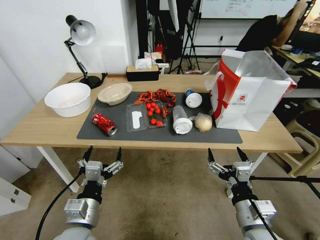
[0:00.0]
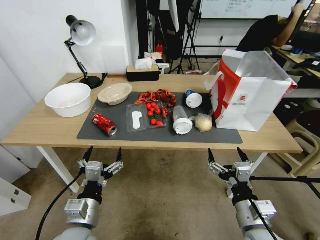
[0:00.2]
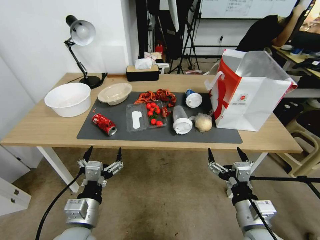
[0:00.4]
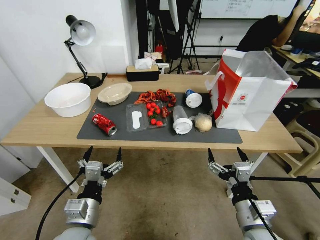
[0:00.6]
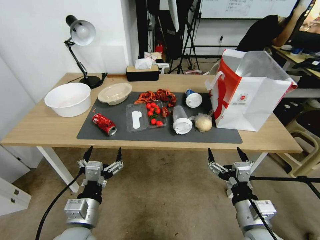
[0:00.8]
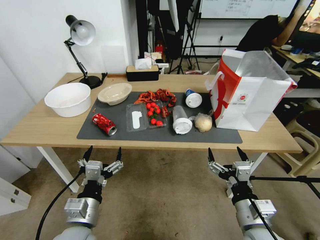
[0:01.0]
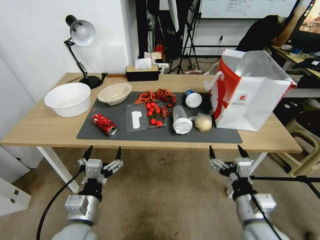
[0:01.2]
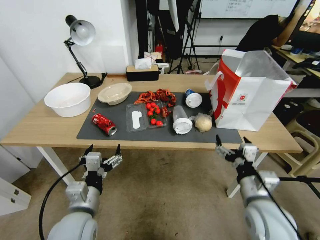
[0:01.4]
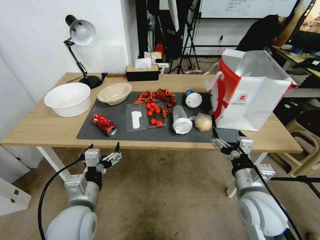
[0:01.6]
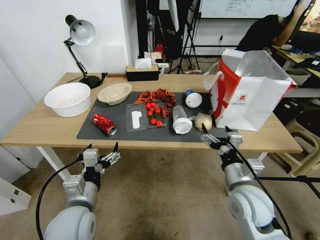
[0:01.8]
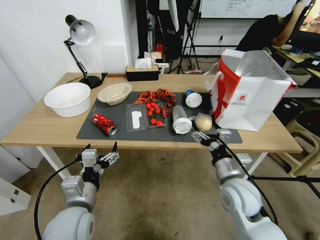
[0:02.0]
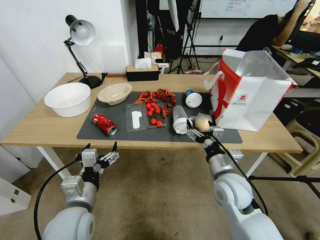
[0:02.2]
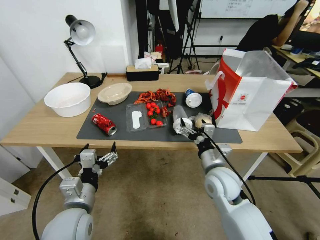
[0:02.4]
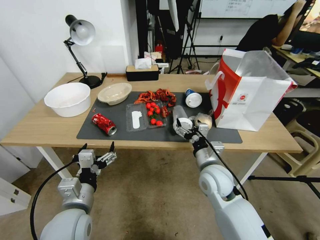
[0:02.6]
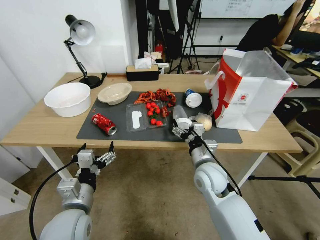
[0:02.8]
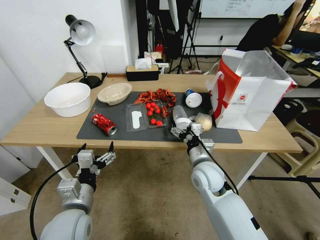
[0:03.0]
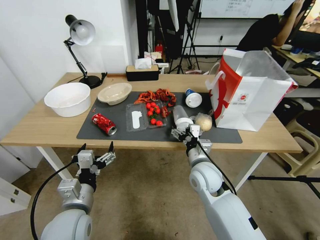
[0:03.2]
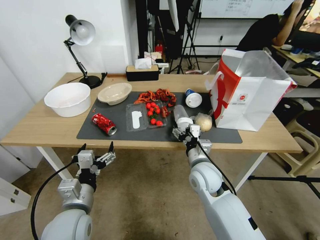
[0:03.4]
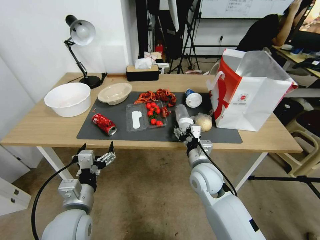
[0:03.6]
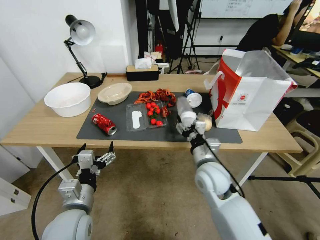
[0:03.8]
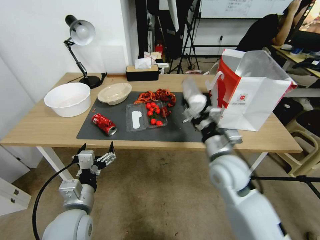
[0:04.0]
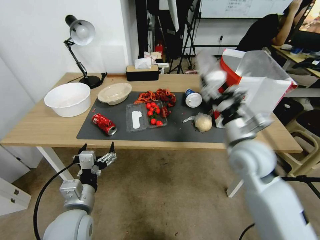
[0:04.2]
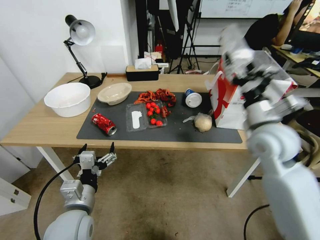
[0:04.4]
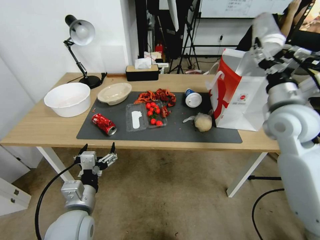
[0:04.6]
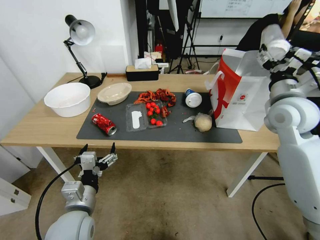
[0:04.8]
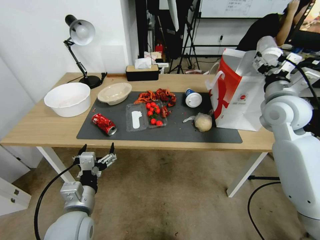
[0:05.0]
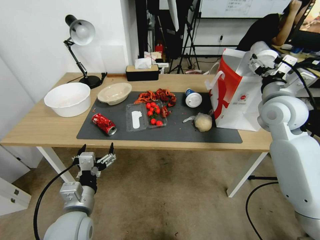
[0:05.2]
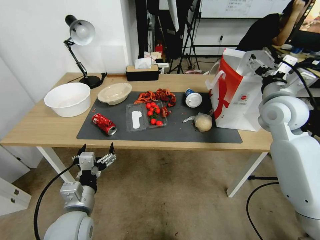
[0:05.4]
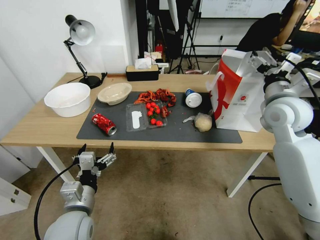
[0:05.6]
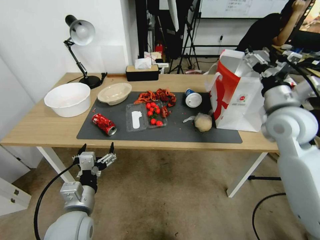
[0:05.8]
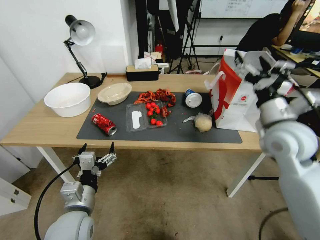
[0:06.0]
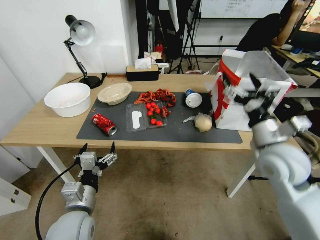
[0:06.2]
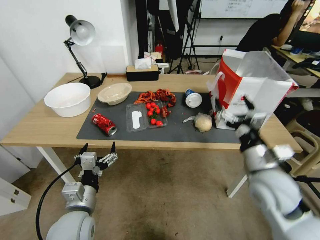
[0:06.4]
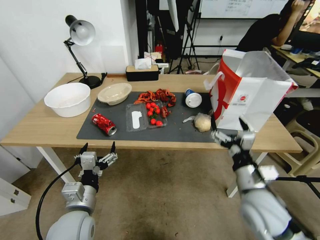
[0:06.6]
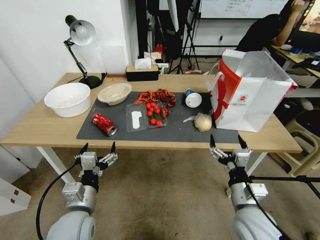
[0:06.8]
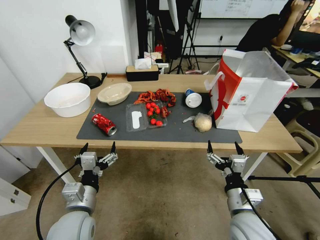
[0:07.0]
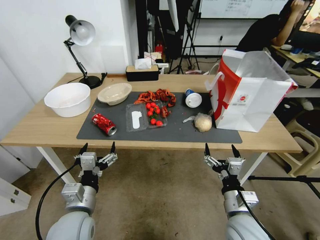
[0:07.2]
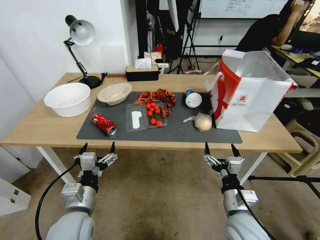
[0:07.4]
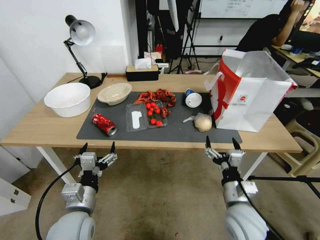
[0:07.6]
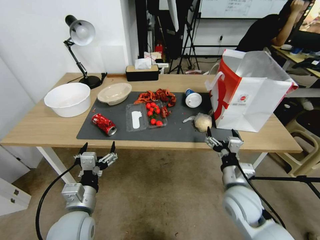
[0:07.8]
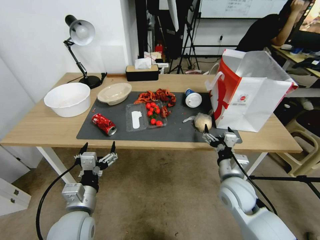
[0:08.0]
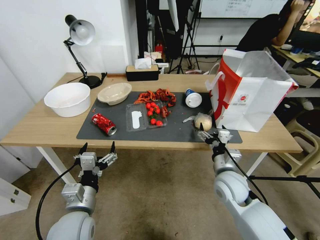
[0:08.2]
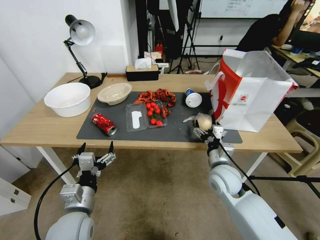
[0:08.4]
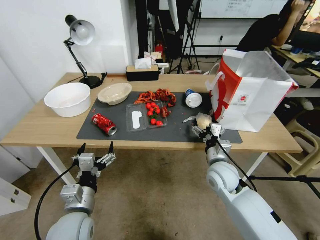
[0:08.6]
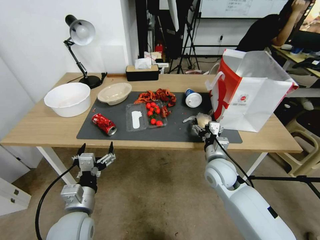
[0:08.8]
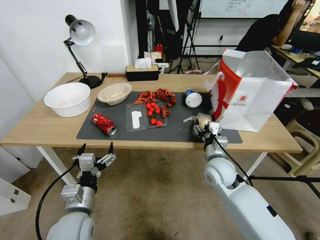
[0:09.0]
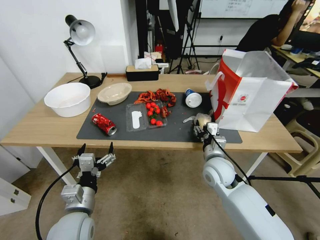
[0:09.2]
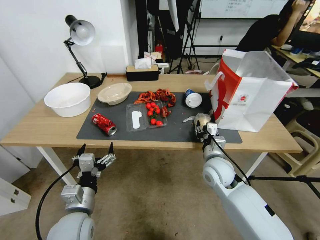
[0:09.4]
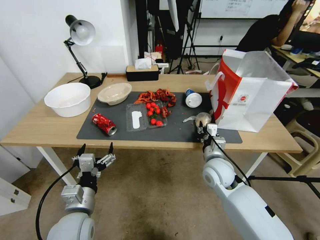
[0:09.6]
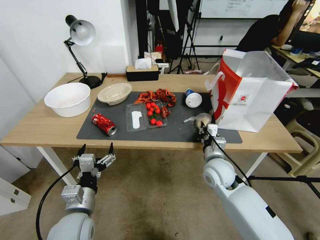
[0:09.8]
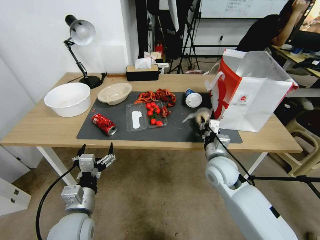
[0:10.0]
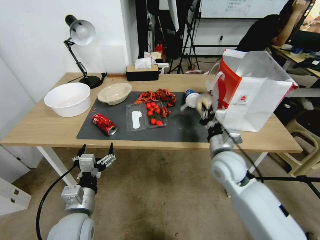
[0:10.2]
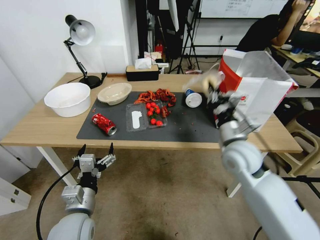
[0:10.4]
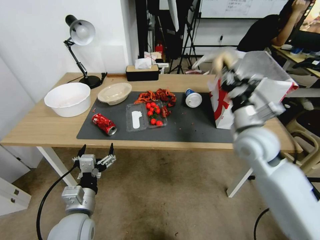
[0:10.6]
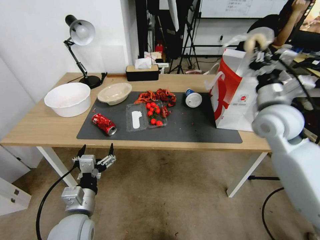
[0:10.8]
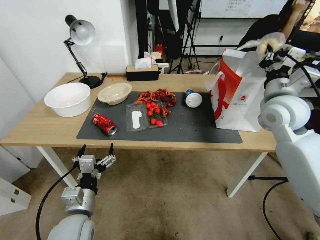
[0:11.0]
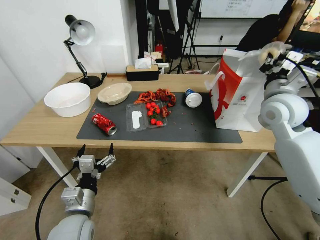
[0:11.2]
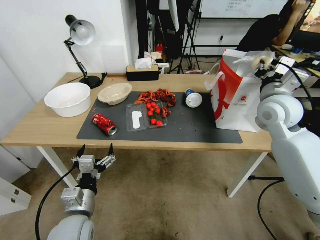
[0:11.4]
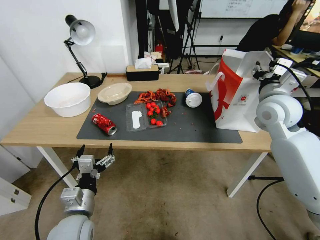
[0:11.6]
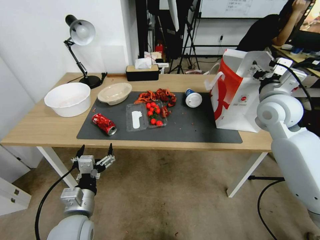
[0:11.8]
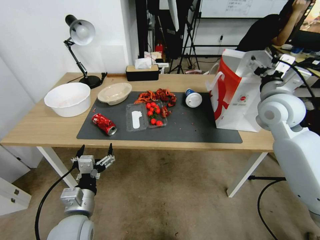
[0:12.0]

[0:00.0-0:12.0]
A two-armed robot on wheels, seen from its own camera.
0:01.6 to 0:03.0: The right gripper heads forward and to the left, covering about 15 cm.
0:03.0 to 0:04.4: The right gripper moves upward and to the right, approximately 20 cm.
0:04.4 to 0:06.0: The right gripper travels forward and back again, approximately 10 cm each way.
0:06.0 to 0:07.6: The right gripper shifts roughly 25 cm downward and backward.
0:07.6 to 0:09.0: The right gripper is displaced forward by some 15 cm.
0:09.0 to 0:10.4: The right gripper shifts approximately 10 cm upward, and closes its fingers.
0:10.4 to 0:12.0: The right gripper travels upward, to the right and forward by some 20 cm, and opens up.

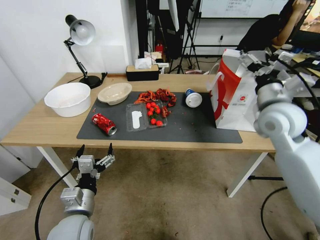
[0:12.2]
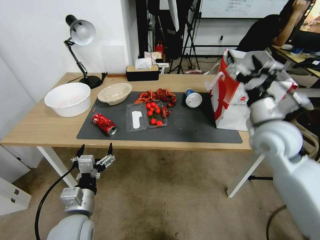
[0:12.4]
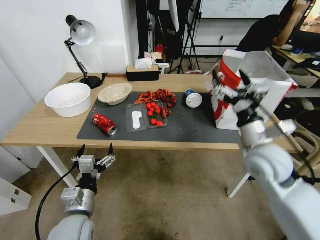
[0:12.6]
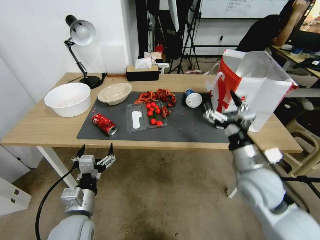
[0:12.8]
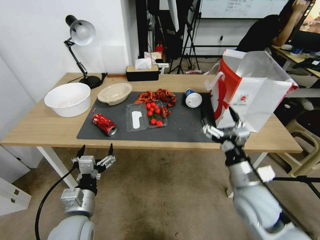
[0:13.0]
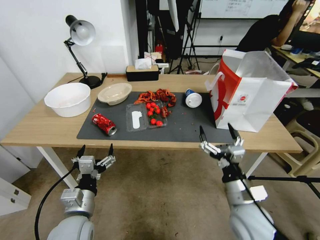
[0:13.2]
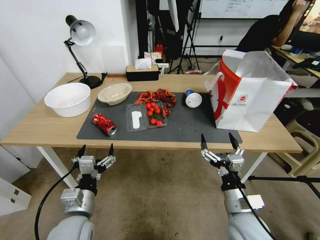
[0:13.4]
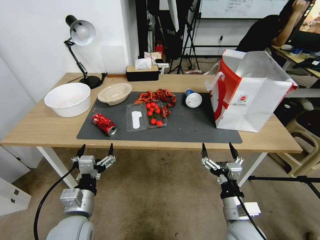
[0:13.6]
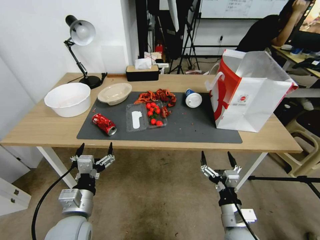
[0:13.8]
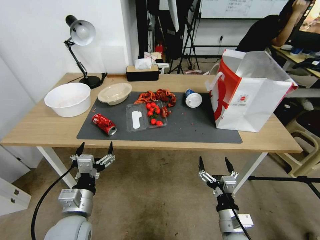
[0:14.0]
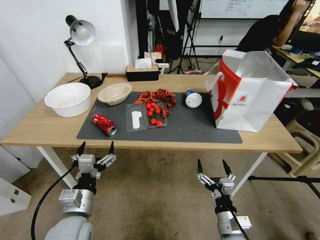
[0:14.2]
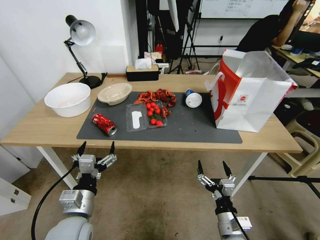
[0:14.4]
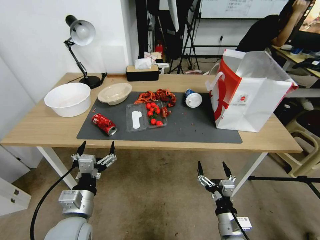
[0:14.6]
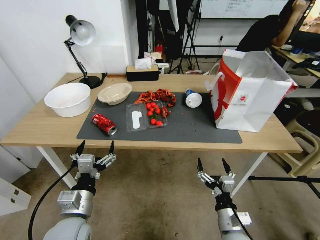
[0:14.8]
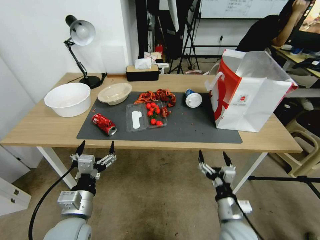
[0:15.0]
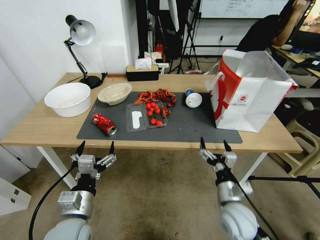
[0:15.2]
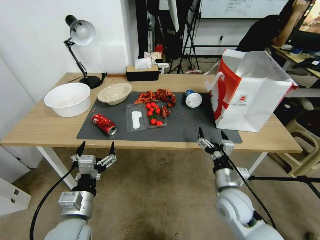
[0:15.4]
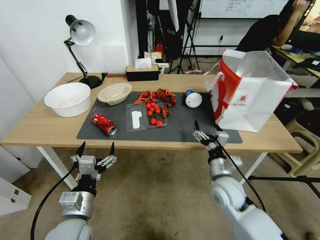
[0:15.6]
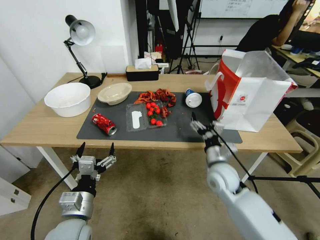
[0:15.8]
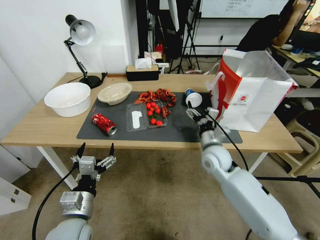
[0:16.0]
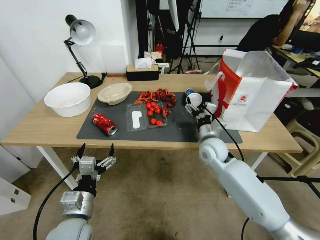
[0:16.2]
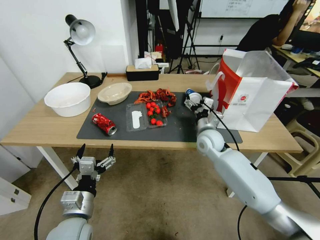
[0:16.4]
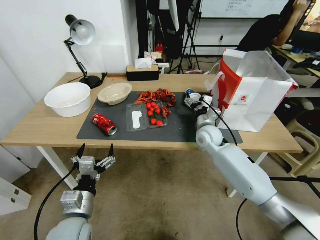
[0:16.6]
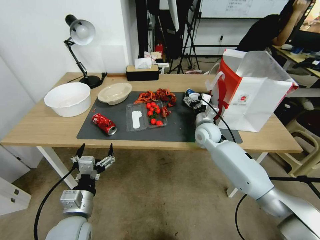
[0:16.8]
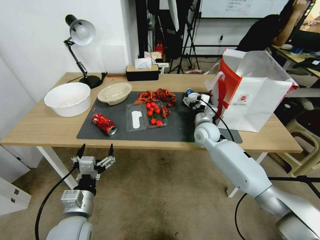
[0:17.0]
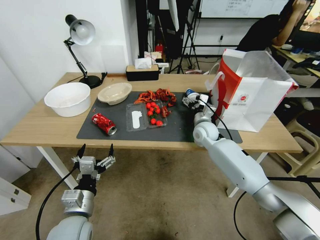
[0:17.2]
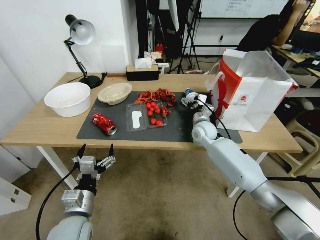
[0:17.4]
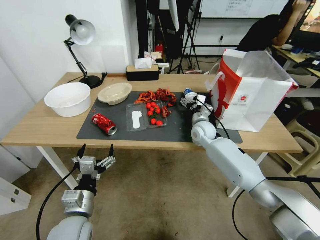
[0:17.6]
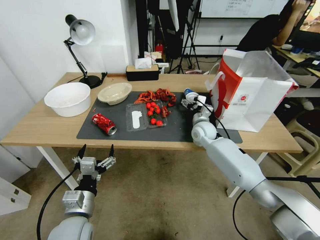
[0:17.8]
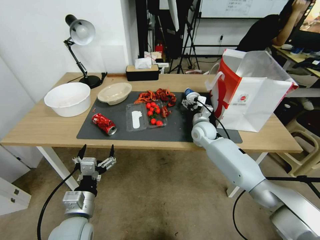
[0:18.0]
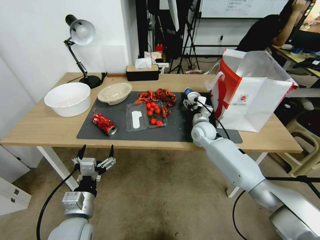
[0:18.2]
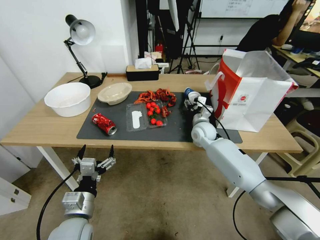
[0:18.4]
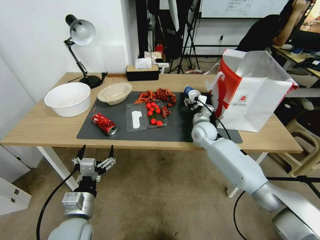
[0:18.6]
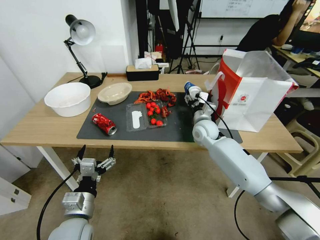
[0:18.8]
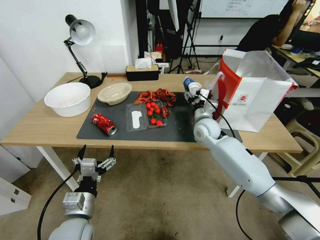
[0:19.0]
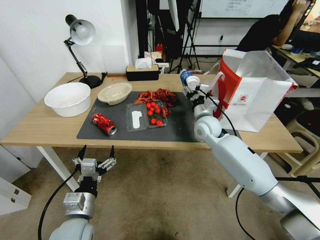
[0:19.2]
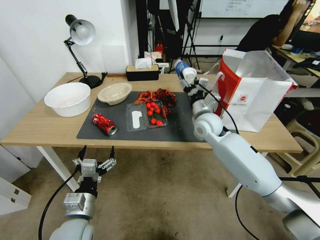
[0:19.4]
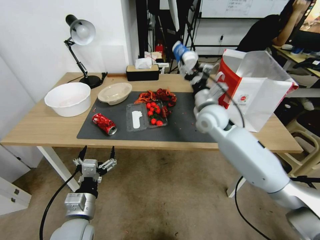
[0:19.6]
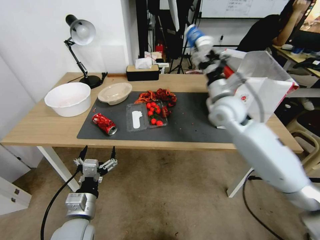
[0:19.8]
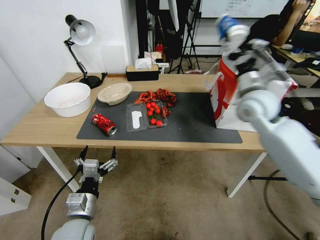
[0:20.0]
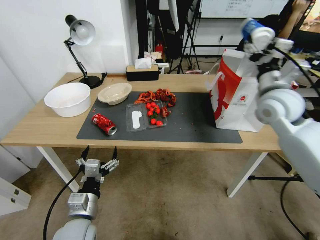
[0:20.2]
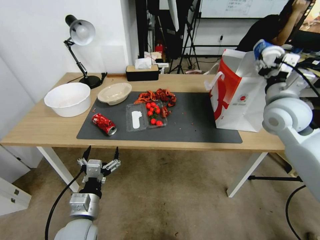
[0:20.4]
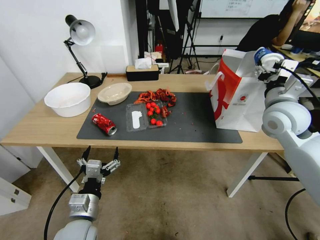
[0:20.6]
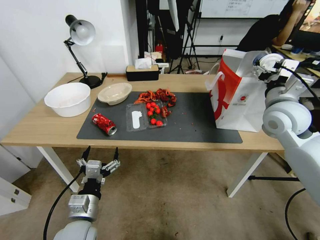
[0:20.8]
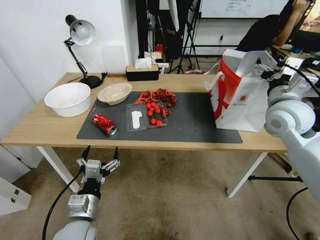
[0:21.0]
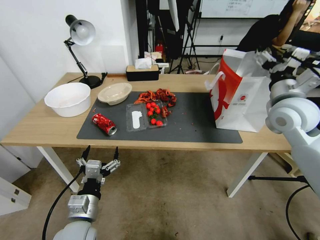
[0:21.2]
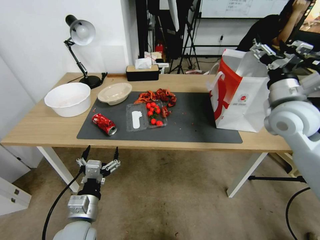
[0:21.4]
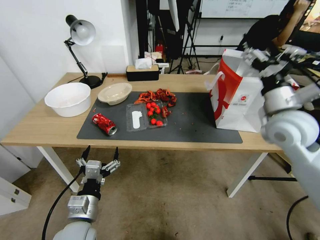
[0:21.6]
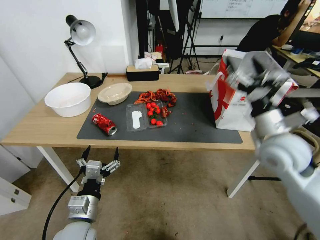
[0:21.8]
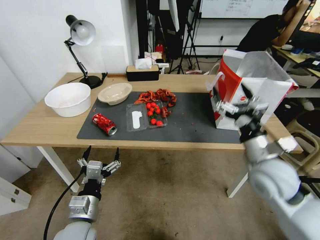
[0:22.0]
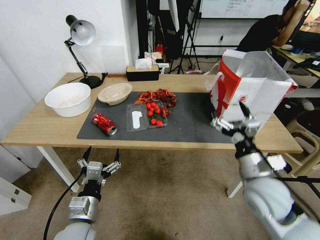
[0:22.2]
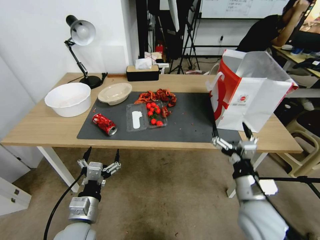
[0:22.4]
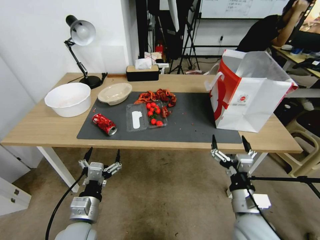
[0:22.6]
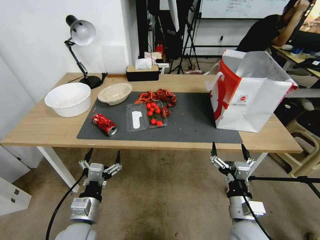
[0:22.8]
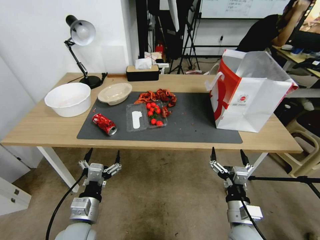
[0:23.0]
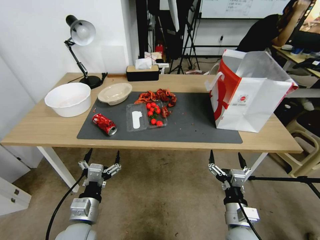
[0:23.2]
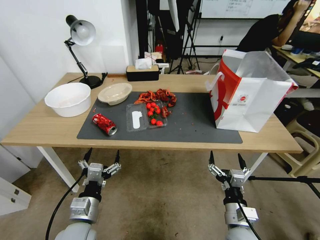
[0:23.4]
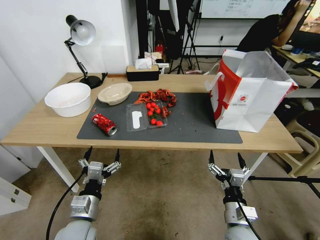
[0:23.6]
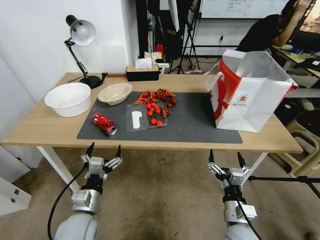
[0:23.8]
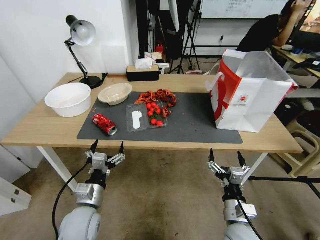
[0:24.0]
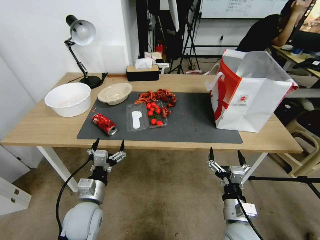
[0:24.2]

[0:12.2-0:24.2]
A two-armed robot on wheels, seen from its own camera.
0:12.2 to 0:13.8: The right gripper travels downward and backward by approximately 35 cm.
0:13.8 to 0:15.2: The grippers stay close to where they were, moving slightly.
0:15.2 to 0:16.6: The right gripper shifts approximately 30 cm forward.
0:16.6 to 0:18.2: There are only small adjustments of the grippers.
0:18.2 to 0:19.8: The right gripper travels upward by approximately 20 cm.
0:19.8 to 0:21.2: The right gripper is displaced to the right and backward by roughly 15 cm, and opens its fingers.
0:21.2 to 0:22.6: The right gripper heads downward, backward and to the left, covering about 25 cm.
0:22.6 to 0:24.2: The right gripper is displaced downward and backward by roughly 10 cm.
